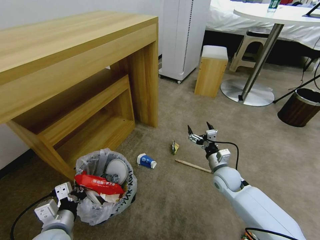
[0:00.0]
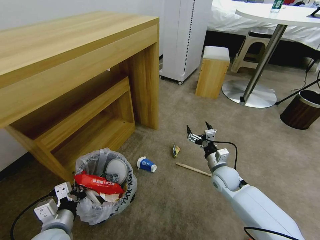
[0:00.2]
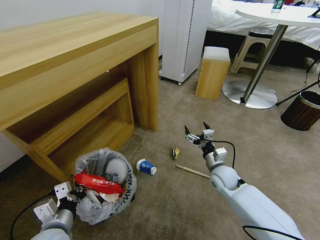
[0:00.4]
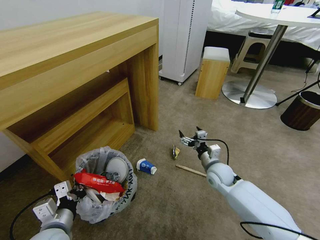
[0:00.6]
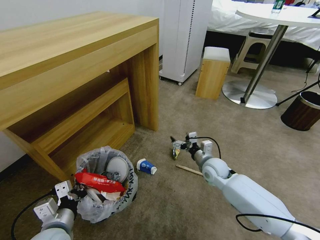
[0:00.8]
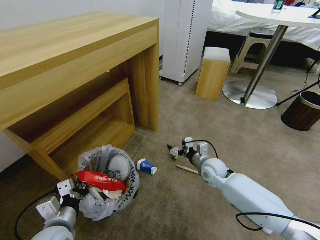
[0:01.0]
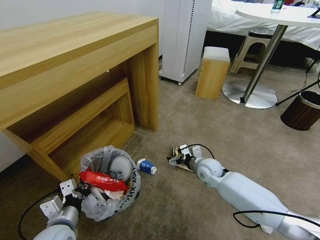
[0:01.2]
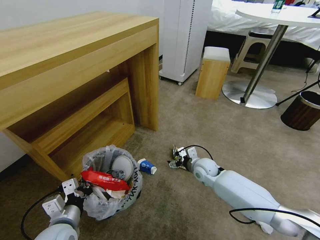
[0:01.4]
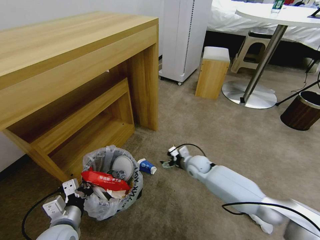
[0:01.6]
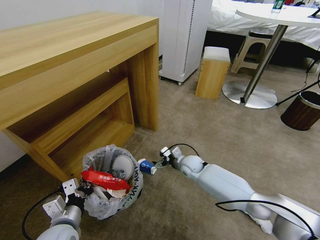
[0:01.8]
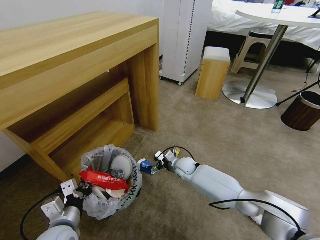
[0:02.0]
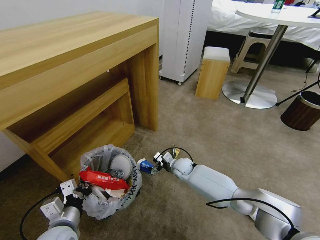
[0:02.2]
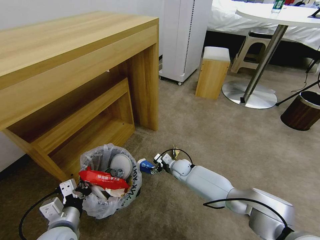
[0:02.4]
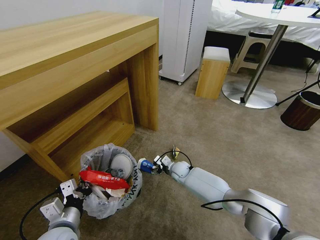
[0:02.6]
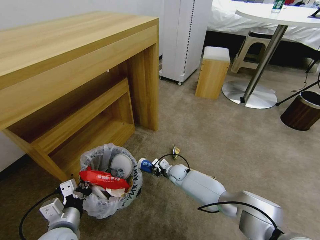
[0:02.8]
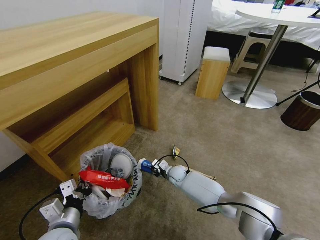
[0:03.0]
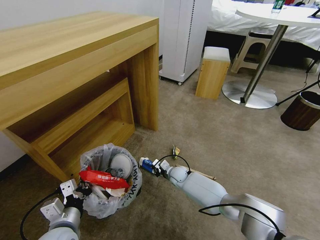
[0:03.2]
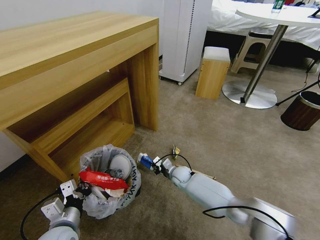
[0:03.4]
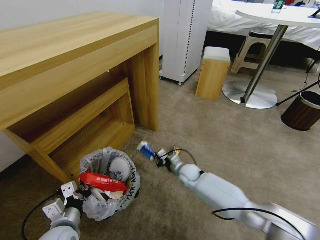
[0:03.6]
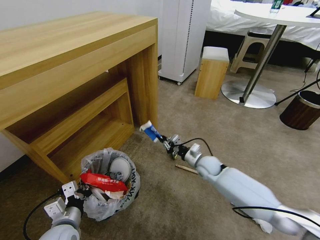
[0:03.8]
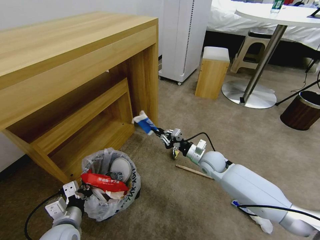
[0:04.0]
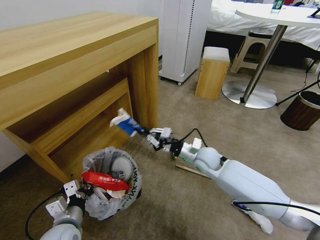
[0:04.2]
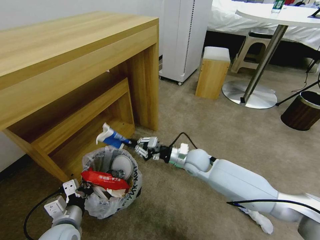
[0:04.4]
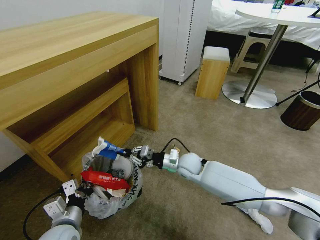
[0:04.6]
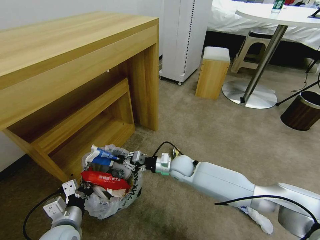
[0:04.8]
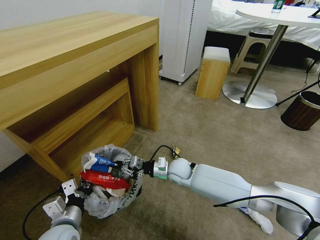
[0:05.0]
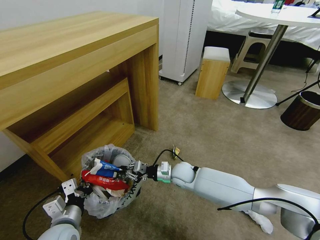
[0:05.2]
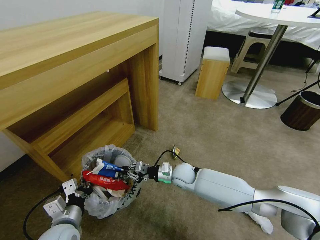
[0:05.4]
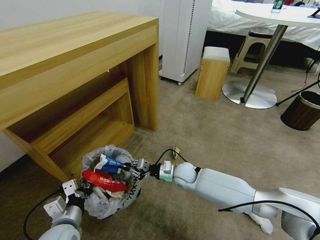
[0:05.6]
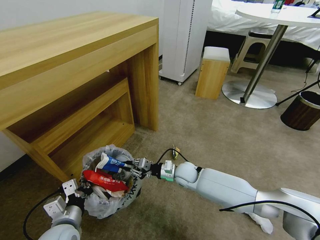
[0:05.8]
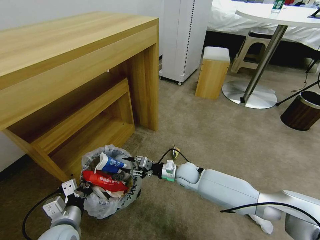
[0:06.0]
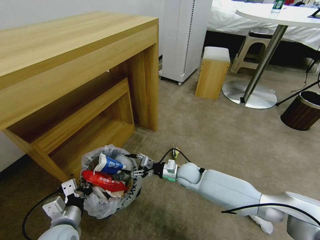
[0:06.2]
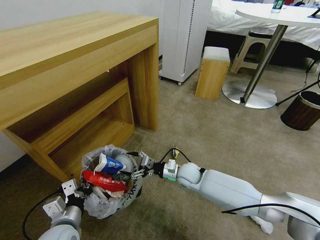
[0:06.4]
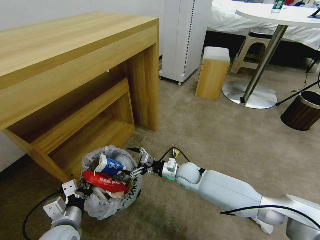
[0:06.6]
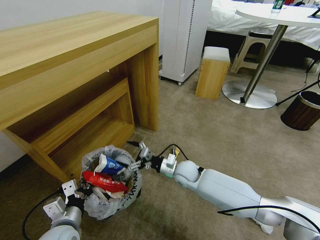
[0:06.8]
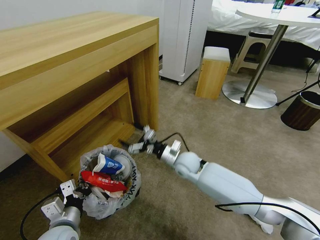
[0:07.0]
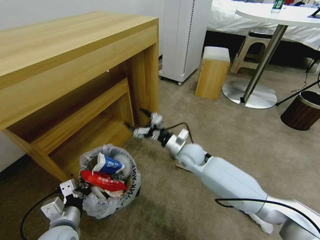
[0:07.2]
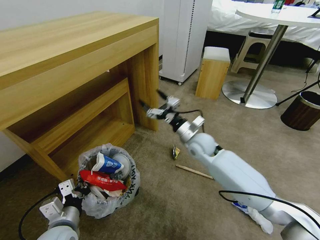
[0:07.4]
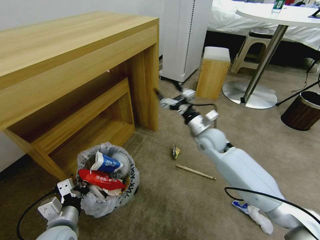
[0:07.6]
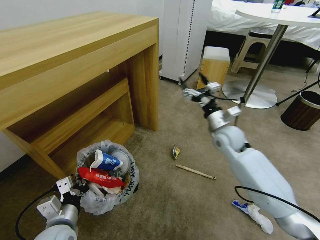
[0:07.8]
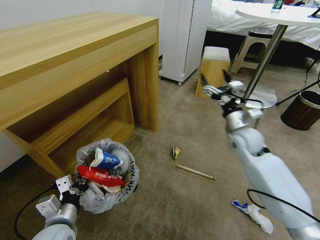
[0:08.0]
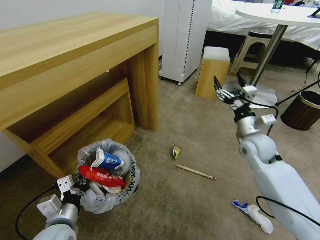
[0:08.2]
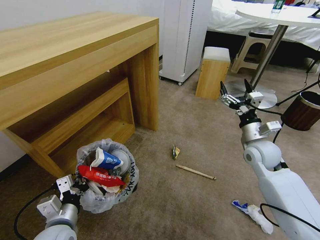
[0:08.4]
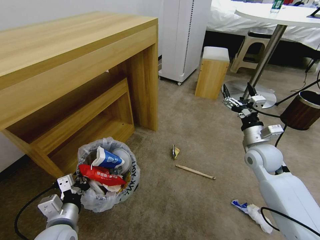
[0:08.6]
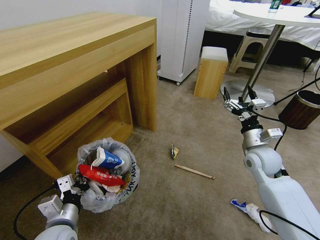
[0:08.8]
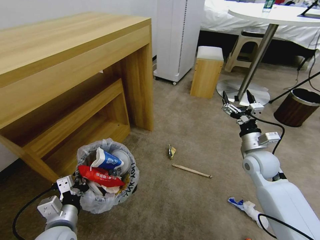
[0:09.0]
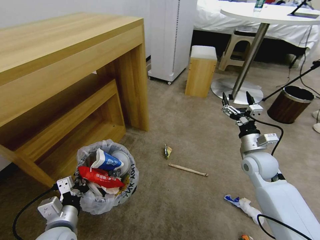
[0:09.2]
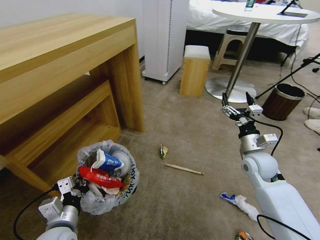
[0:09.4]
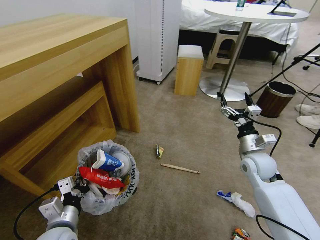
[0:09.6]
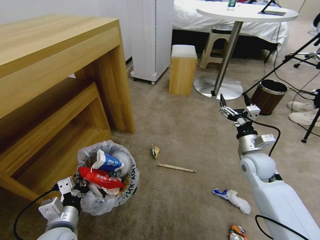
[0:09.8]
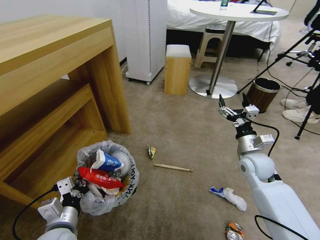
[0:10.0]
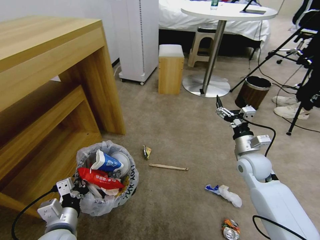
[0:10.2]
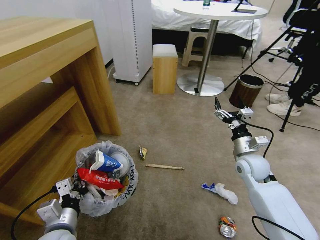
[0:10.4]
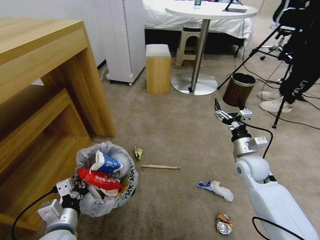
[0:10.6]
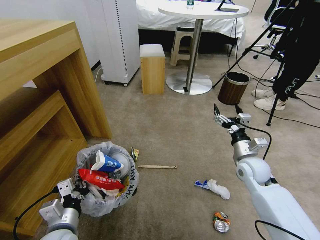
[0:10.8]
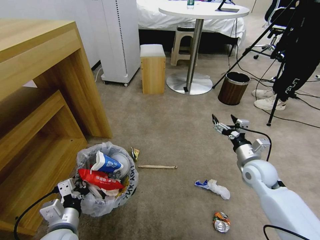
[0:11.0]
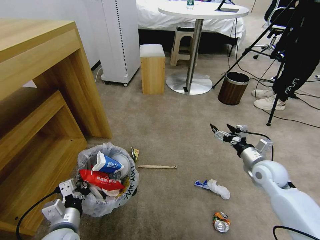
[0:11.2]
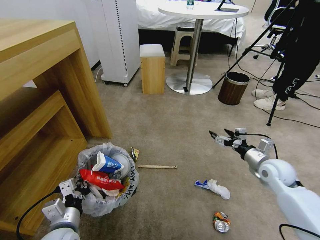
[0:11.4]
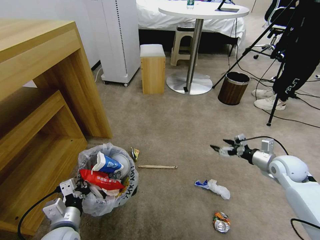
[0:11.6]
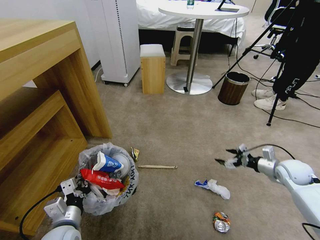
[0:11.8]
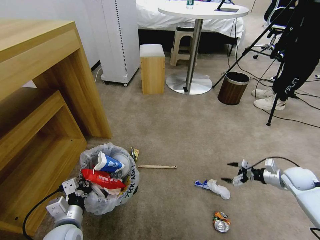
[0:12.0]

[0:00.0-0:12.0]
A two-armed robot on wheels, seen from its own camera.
Task of the whole recording: Pick up the trash bin and place the garbage on the floor into it.
0:00.0 to 0:01.6: The right gripper goes about 10 cm to the left and forward.
0:01.6 to 0:03.0: The right gripper travels downward and to the left by some 15 cm, and closes its fingers.
0:03.0 to 0:04.4: The right gripper moves upward, approximately 20 cm.
0:04.4 to 0:06.0: The right gripper is displaced downward by roughly 10 cm, and opens.
0:06.0 to 0:07.6: The right gripper moves upward and to the right, roughly 20 cm, and opens its fingers.
0:07.6 to 0:09.0: The right gripper travels to the right and backward by some 15 cm.
0:10.4 to 0:12.0: The right gripper heads to the right, covering roughly 20 cm.

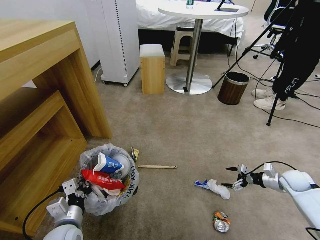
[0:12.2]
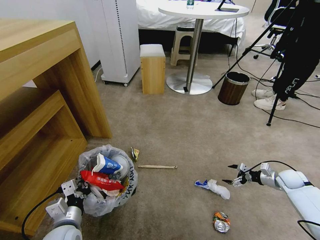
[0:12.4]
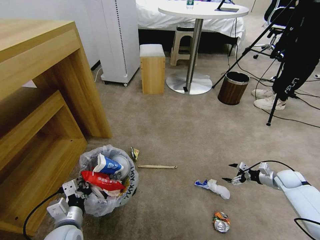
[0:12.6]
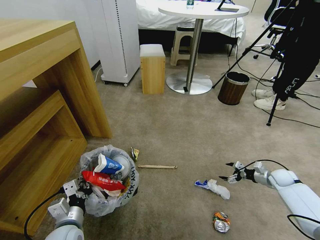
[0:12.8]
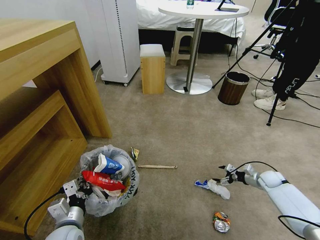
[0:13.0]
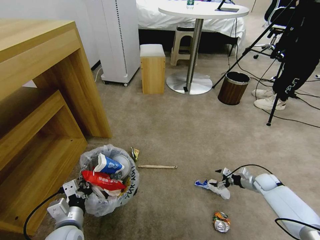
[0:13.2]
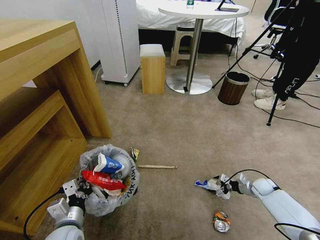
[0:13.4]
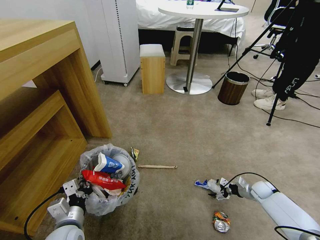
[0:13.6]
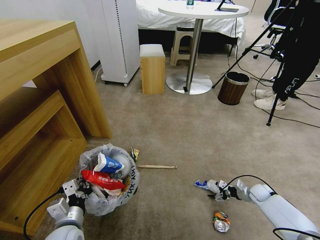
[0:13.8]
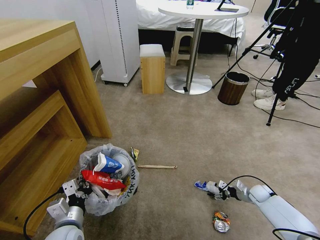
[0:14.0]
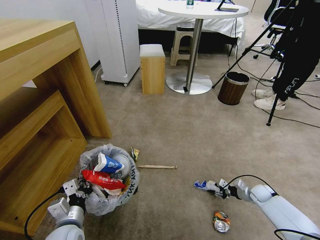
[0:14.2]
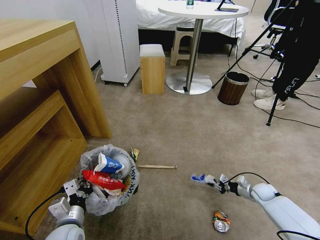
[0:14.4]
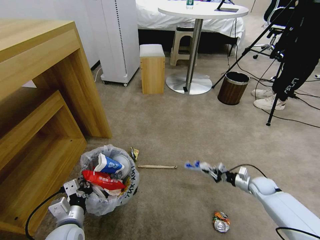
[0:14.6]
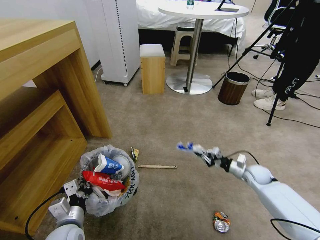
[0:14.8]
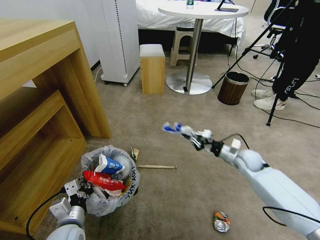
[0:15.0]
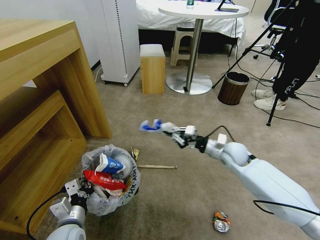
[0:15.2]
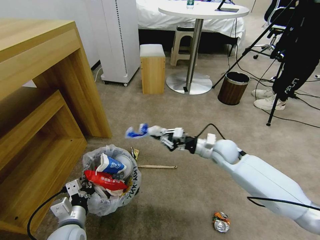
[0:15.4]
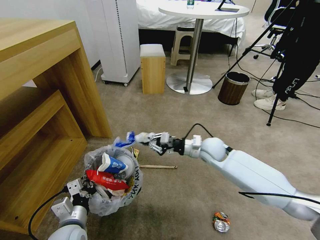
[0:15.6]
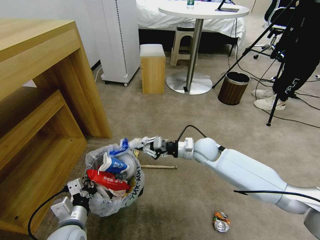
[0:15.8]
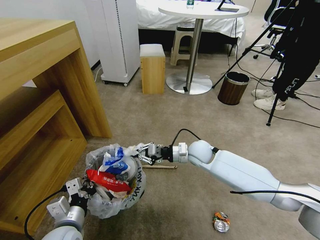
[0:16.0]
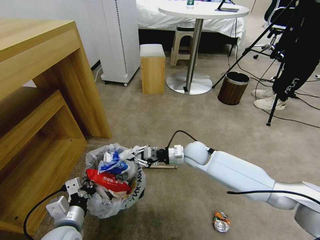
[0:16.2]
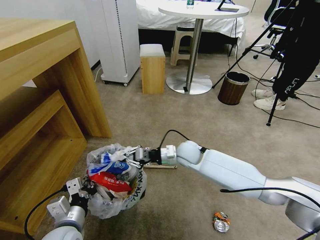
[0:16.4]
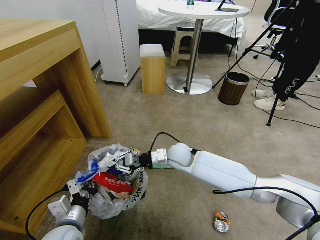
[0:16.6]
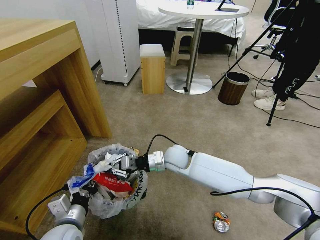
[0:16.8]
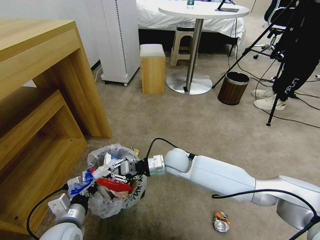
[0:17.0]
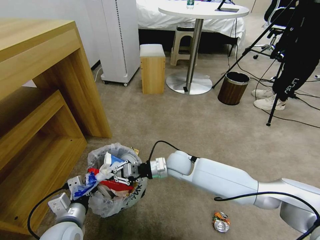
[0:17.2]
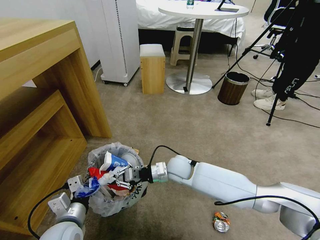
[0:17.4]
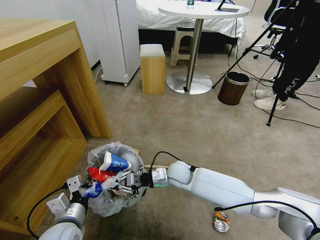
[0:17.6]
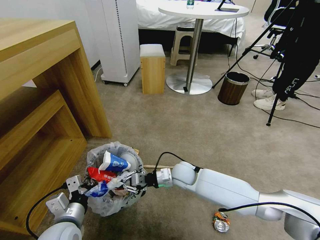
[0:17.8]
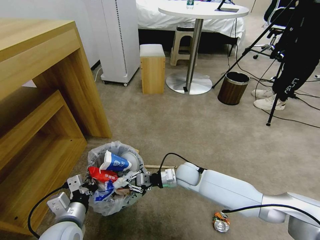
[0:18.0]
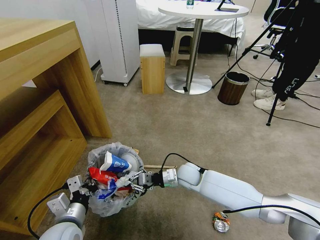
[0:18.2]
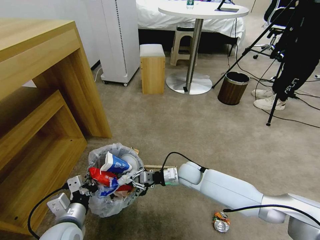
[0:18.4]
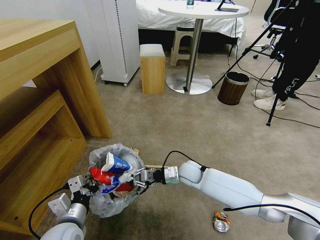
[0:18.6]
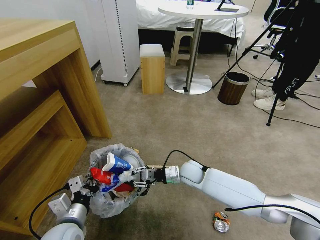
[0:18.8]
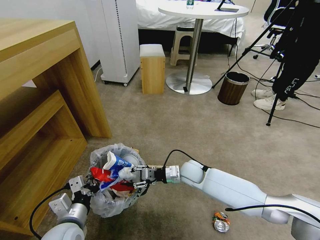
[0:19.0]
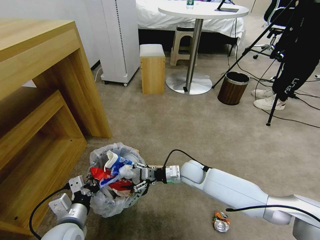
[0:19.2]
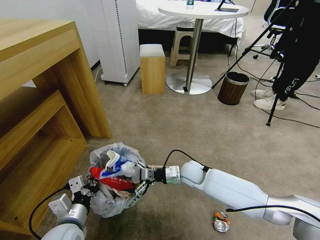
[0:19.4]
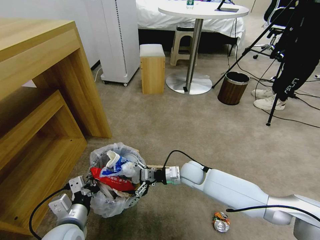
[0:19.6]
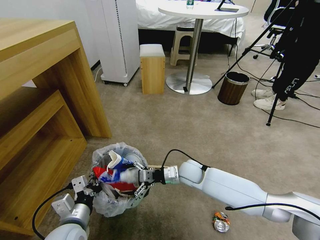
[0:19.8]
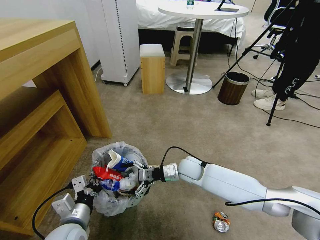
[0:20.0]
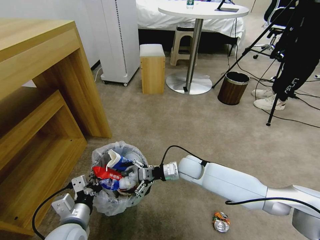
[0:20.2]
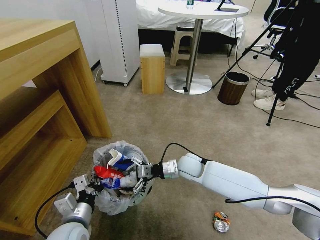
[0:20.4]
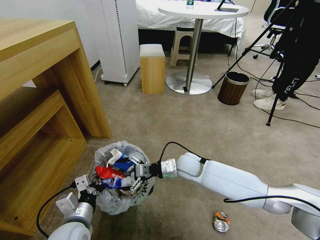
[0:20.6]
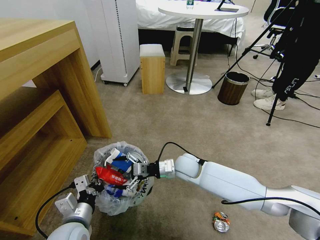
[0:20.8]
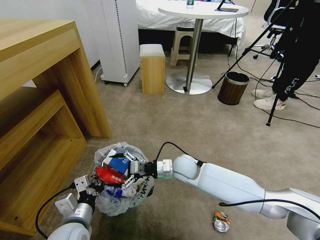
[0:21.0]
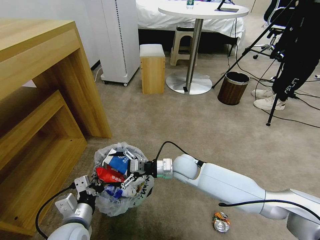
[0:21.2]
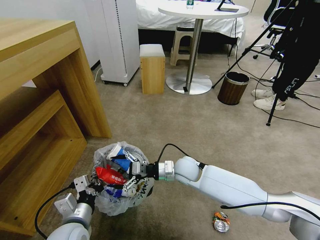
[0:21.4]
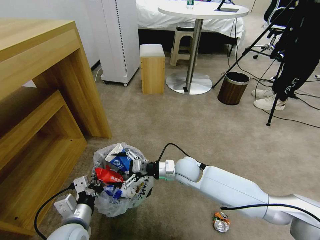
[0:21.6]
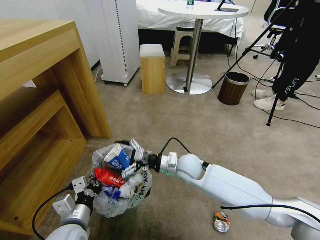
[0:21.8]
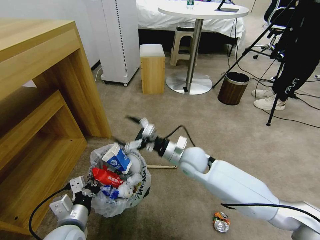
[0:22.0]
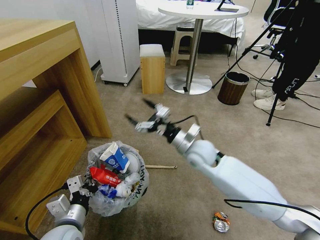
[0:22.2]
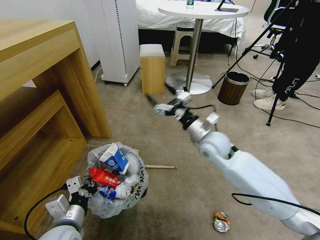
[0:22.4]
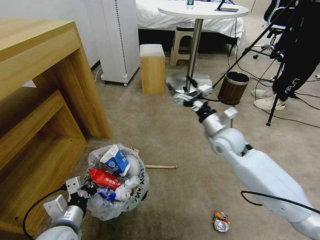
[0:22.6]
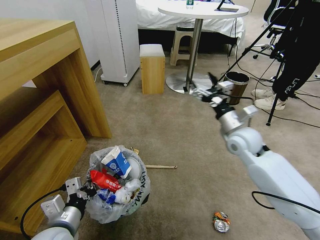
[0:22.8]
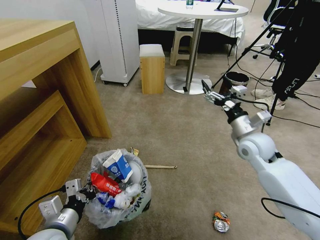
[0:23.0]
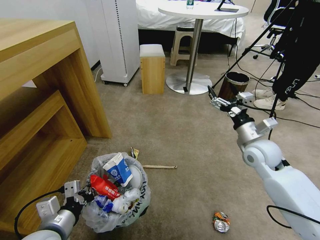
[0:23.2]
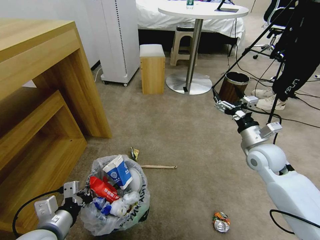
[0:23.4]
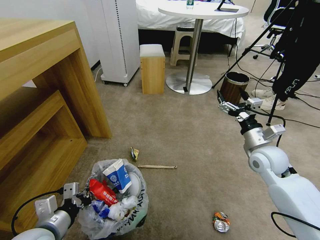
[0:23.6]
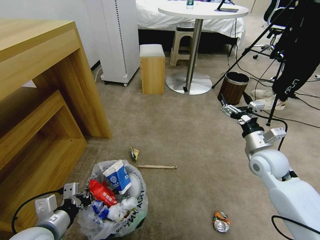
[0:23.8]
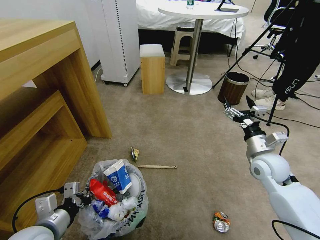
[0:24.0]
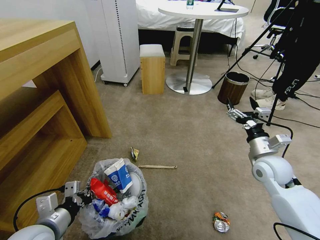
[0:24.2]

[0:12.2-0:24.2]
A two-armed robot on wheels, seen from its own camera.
Task of the whole recording: Pick up the trash bin and place the garbage on the floor into it.
0:12.2 to 0:13.8: The right gripper moves downward and to the left, approximately 15 cm.
0:13.8 to 0:15.2: The right gripper travels upward and to the left by about 30 cm, and closes its fingers.
0:15.2 to 0:16.6: The right gripper travels to the left by roughly 20 cm.
0:16.6 to 0:18.2: The right gripper heads downward, covering roughly 10 cm.
0:18.2 to 0:19.8: The right gripper opens up.
0:19.8 to 0:21.2: The right gripper changes place by about 5 cm.
0:21.2 to 0:22.6: The right gripper is displaced to the right and upward by approximately 20 cm.
0:22.6 to 0:24.2: The right gripper is displaced to the right and backward by roughly 15 cm. The left gripper changes place by some 5 cm.
